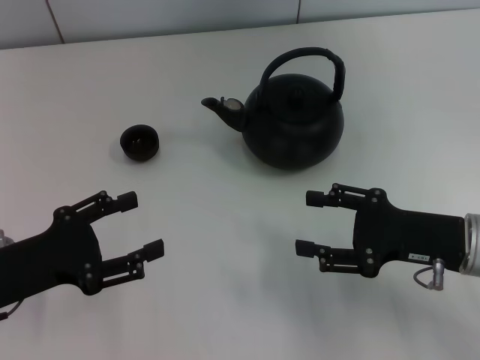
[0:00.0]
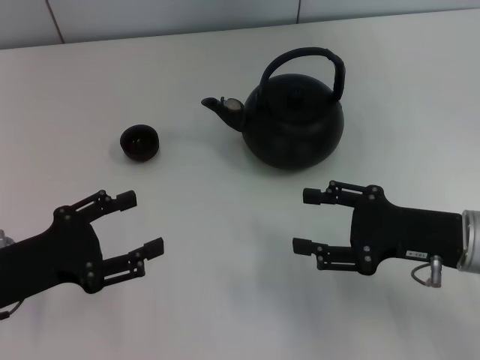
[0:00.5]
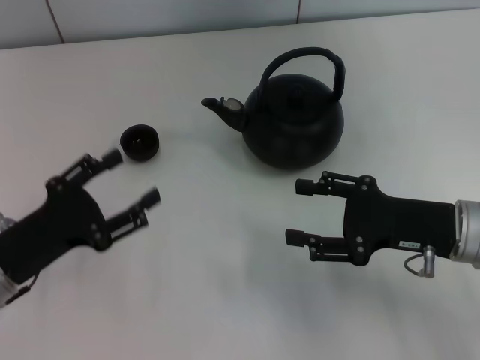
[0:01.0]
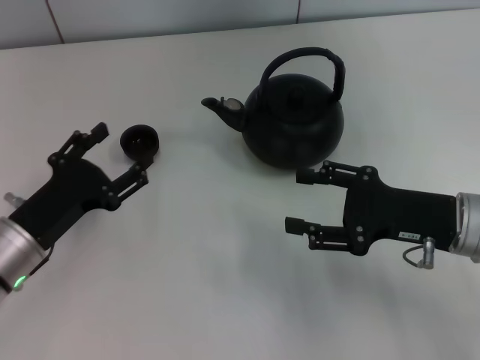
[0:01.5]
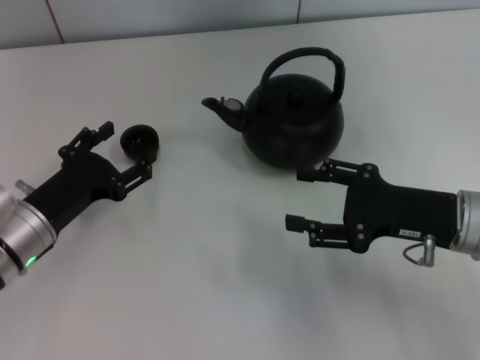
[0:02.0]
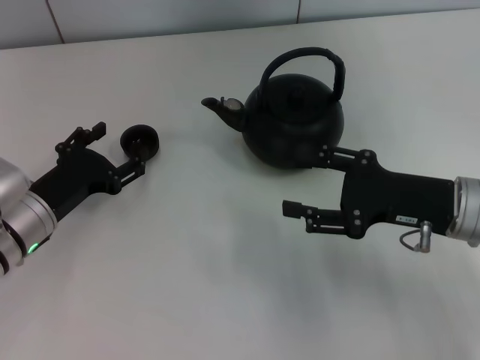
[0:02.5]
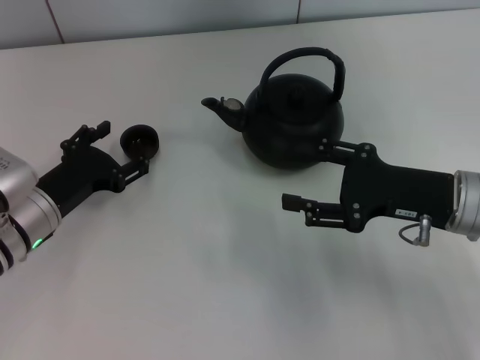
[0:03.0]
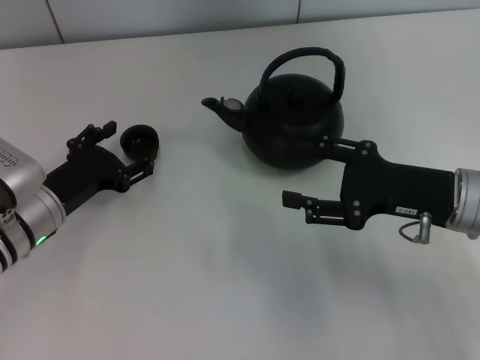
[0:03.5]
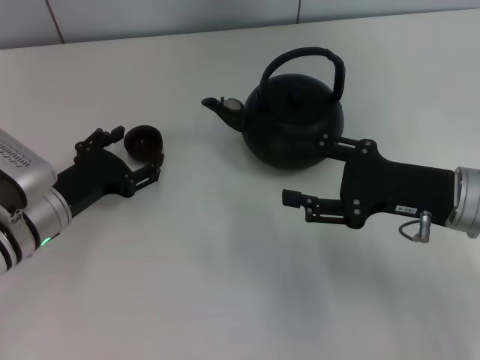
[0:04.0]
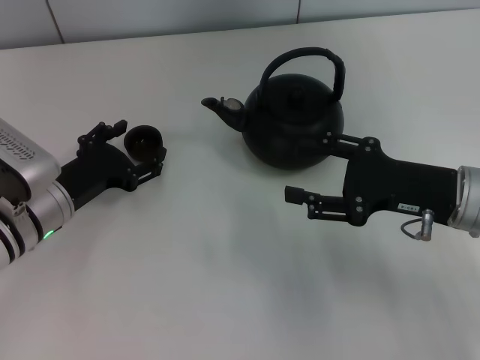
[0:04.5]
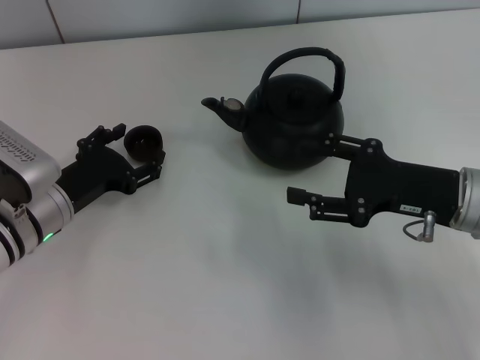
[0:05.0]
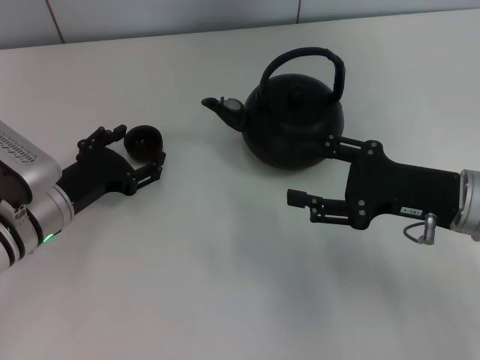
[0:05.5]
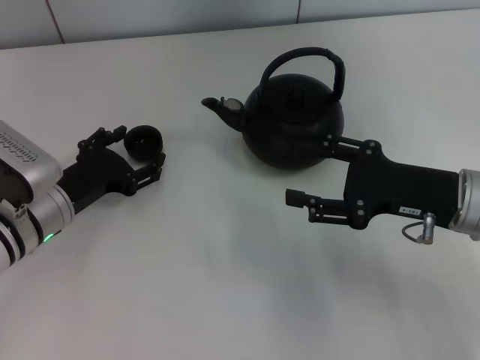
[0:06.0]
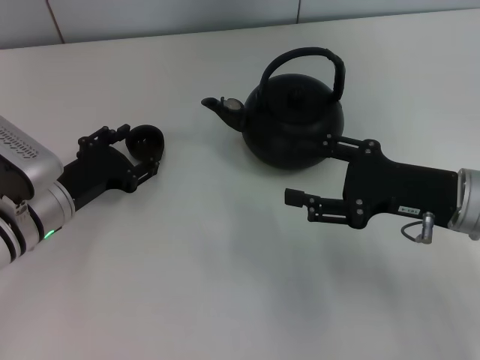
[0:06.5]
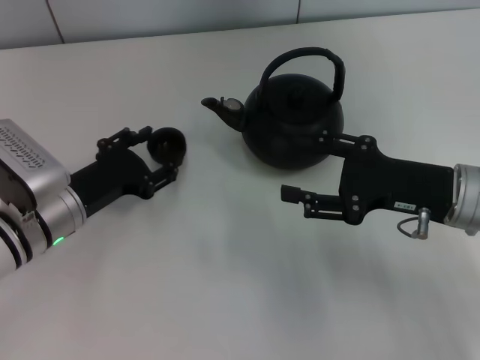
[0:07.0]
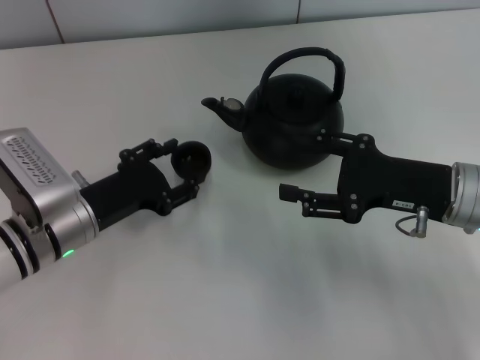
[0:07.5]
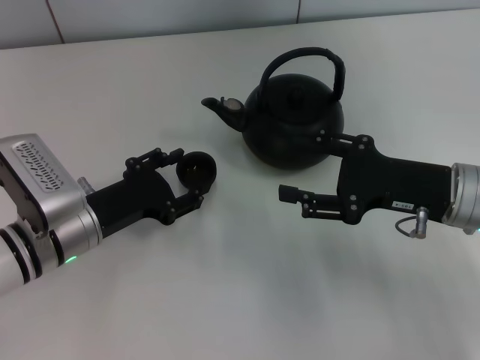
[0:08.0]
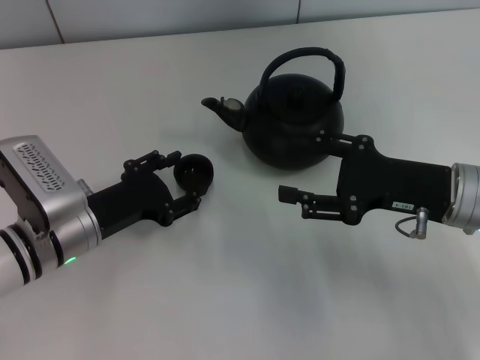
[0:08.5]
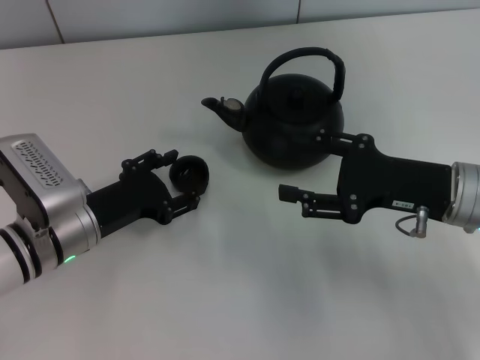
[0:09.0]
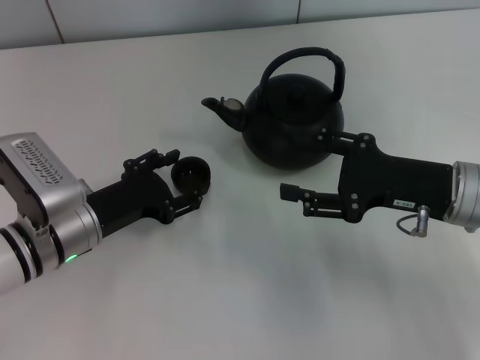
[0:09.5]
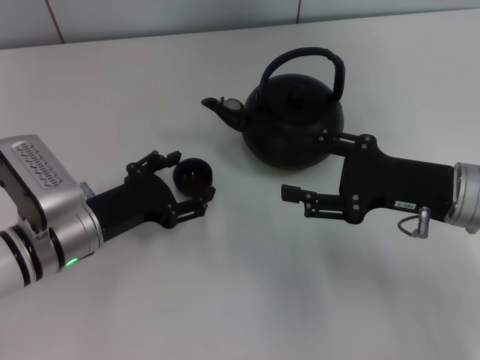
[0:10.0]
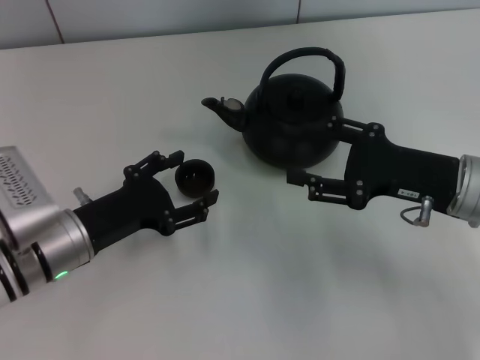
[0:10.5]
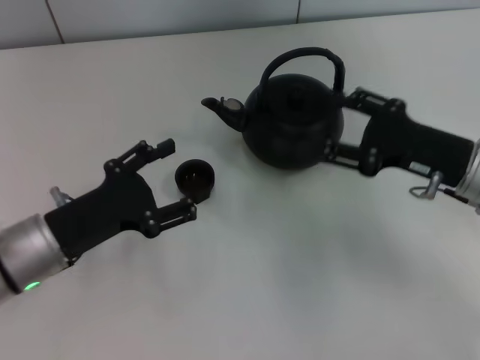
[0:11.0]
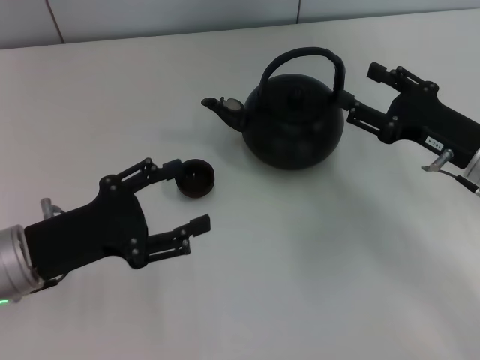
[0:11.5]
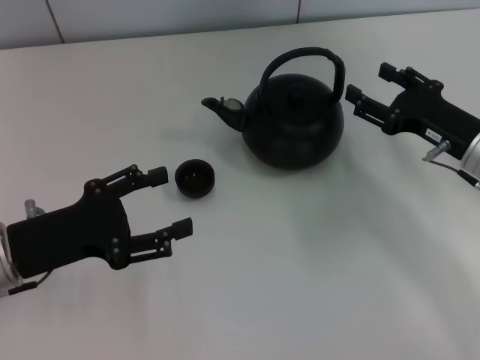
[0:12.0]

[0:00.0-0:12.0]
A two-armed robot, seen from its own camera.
Task of the whole recording: Grasp the handle of the teapot with one hand and pour tea into the teacup.
Step, 0:00.0 to 0:07.0: Pick up the teacup with the left gripper.
Step, 0:07.5 to 0:11.0: Place the teacup in the center of view with the left gripper.
0:00.0 to 0:02.0: The left gripper heads forward, covering about 5 cm.
0:02.0 to 0:04.0: The grippers stay close to where they were, moving slightly.
0:04.0 to 0:06.0: Both grippers stay put.
0:06.0 to 0:08.0: The left gripper closes up.
0:08.0 to 0:10.0: The left gripper opens its fingers.
0:10.0 to 0:12.0: The left gripper goes approximately 5 cm to the left and upward. Meanwhile the right gripper shifts by approximately 5 cm.

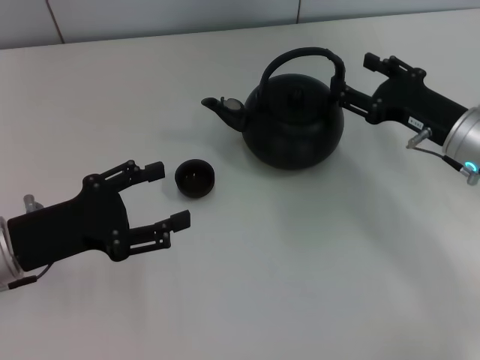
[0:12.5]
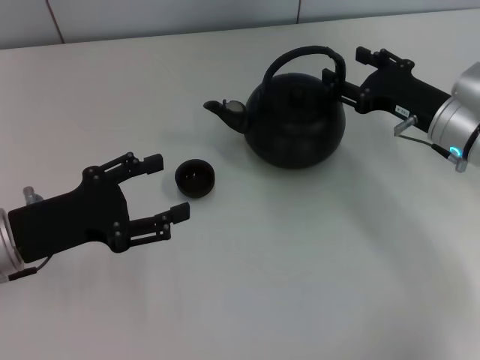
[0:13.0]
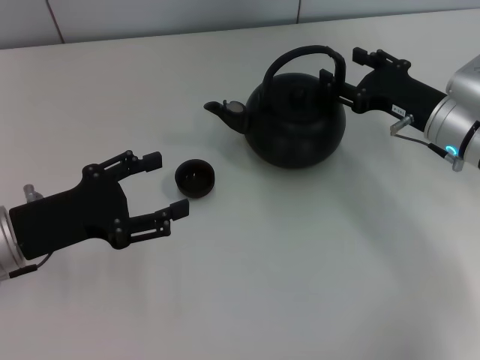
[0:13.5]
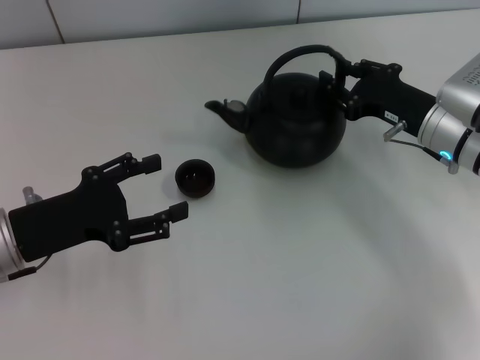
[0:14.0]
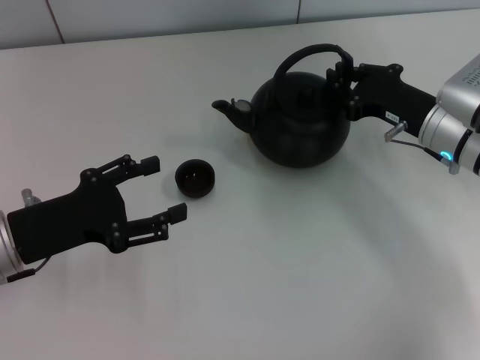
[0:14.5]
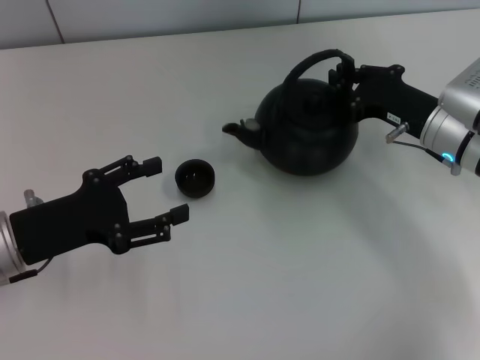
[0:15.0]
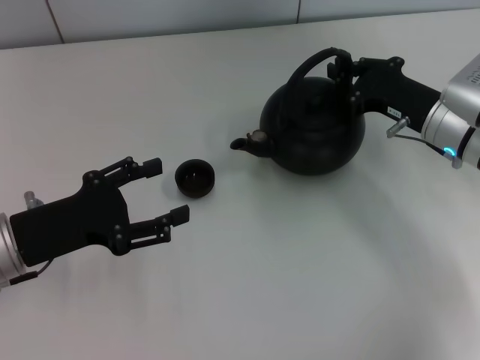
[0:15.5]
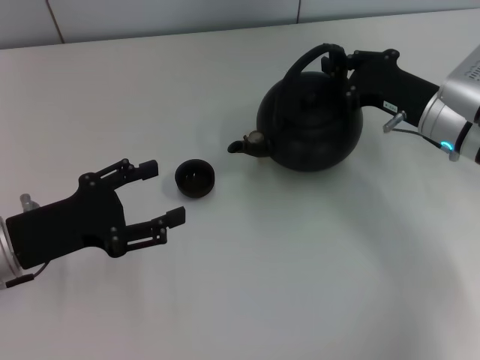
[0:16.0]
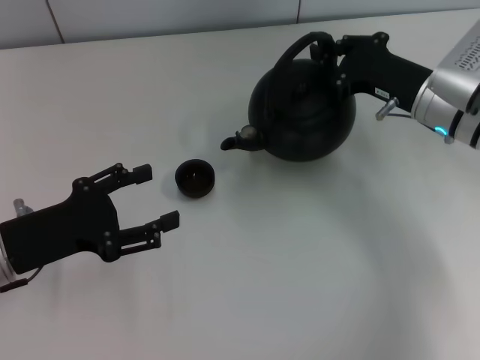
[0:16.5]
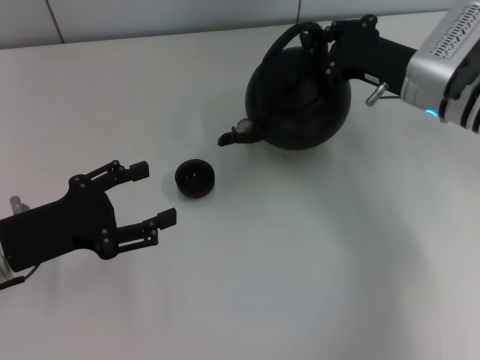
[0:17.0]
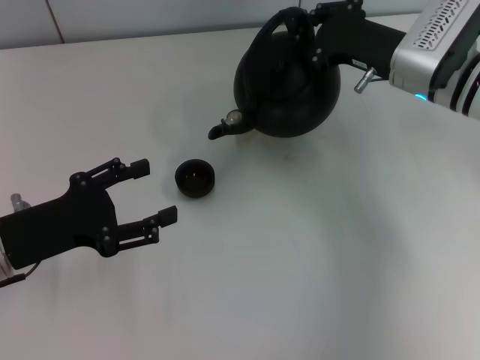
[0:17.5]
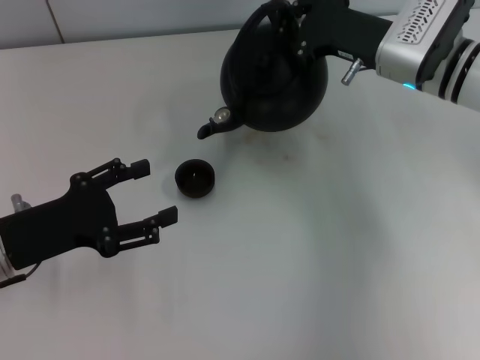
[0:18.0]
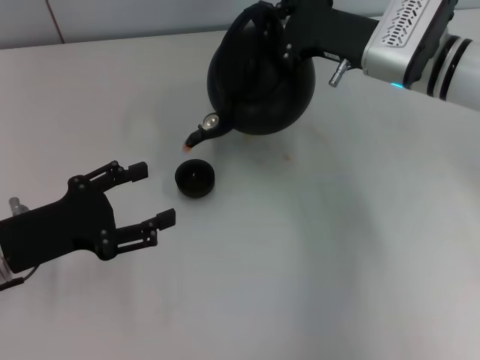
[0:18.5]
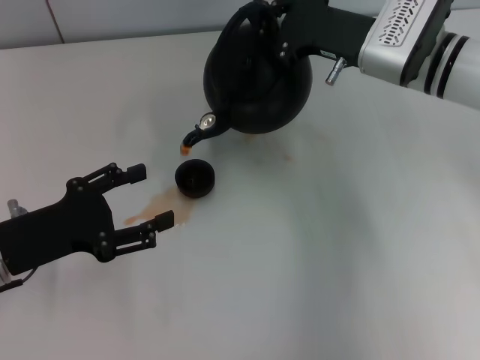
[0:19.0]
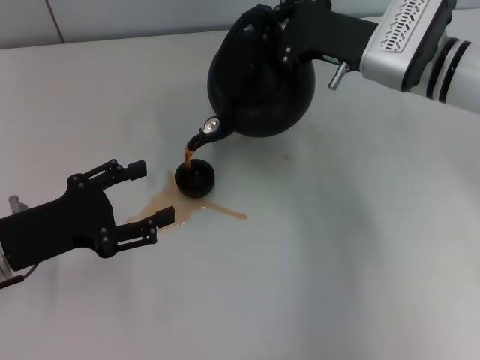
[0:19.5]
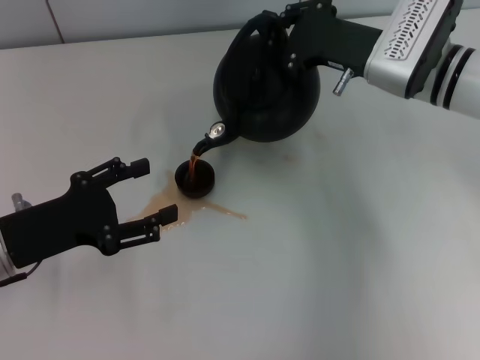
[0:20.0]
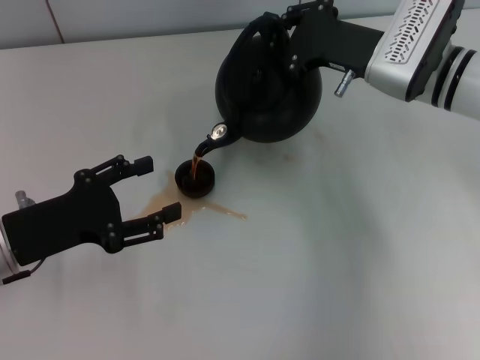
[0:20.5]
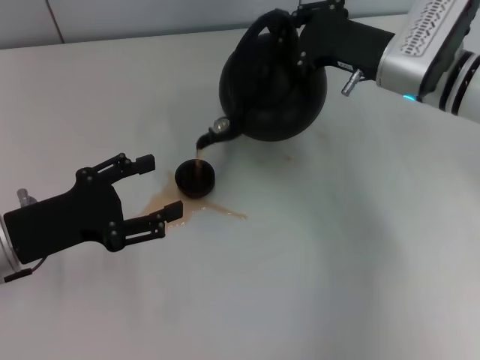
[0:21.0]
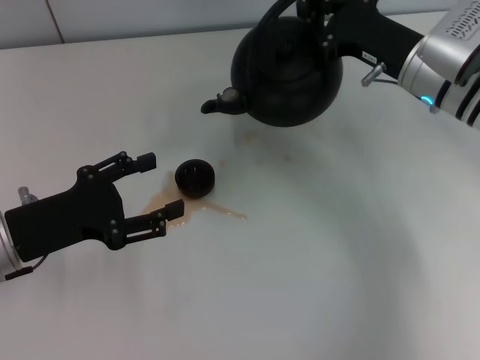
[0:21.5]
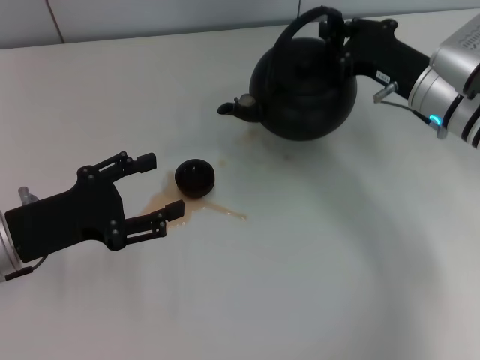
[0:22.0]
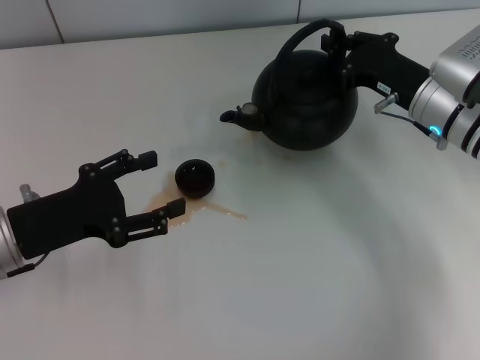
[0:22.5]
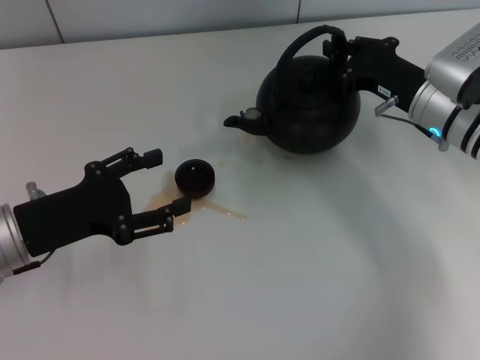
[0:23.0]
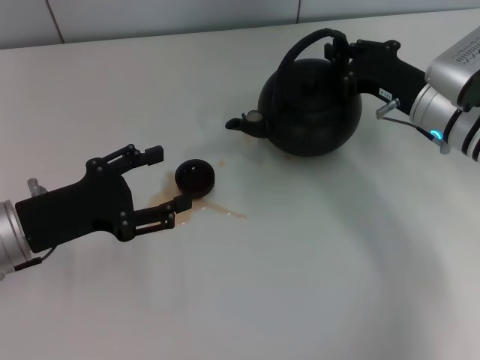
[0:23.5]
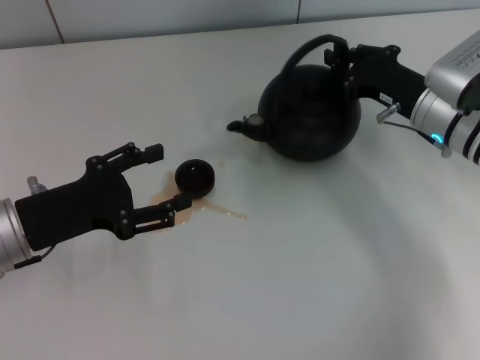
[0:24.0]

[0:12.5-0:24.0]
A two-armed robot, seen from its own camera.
Task of the whole recording: Grasp the handle of the teapot with one hand and pour tea into the teacup.
Step, 0:12.5 to 0:16.5: Pick up the teapot with the right gripper.
0:12.5 to 0:14.5: The right gripper closes up.
0:14.5 to 0:16.5: The grippers stay close to where they were, moving slightly.
0:16.5 to 0:18.5: The right gripper ends up some 5 cm from where it was.
0:18.5 to 0:20.0: Both grippers stay about where they are.
0:20.0 to 0:22.0: The right gripper shifts by roughly 5 cm.
0:22.0 to 0:24.0: The grippers stay close to where they were, moving slightly.

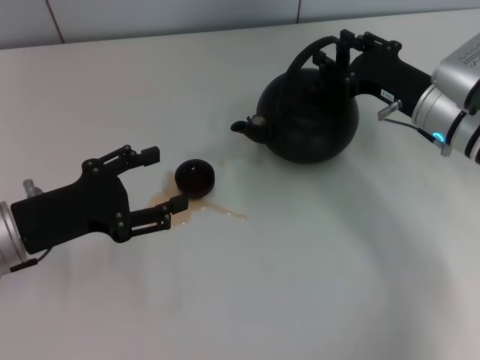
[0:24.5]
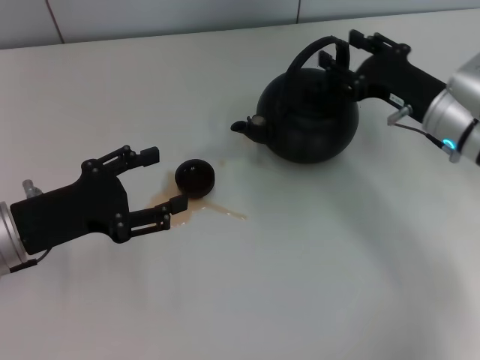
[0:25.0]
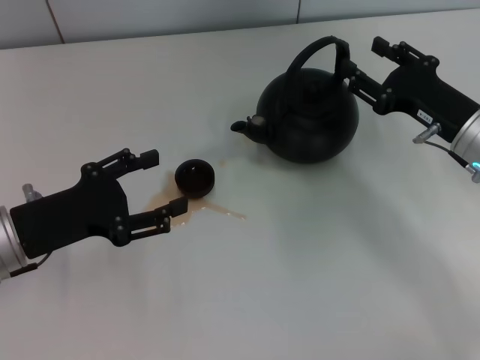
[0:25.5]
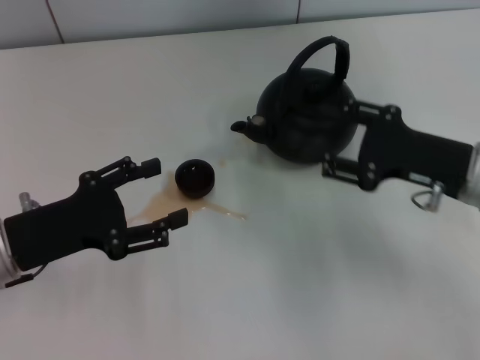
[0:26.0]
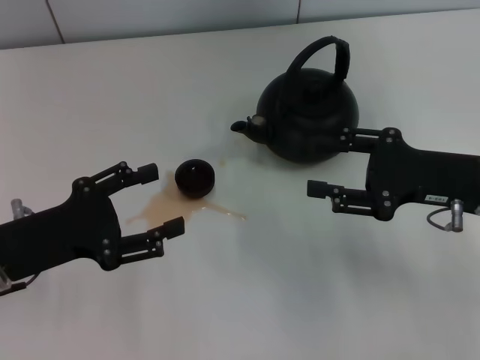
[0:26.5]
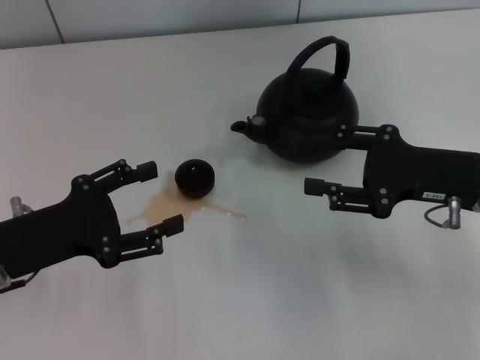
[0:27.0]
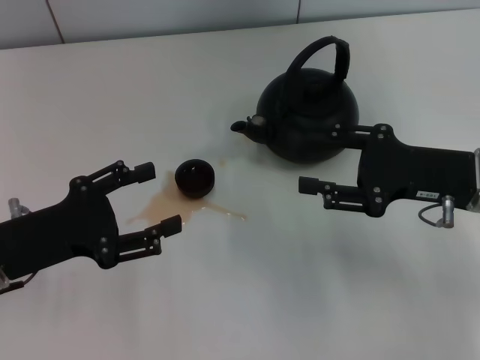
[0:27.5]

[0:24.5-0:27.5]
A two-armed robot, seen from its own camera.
Task of the whole recording: Grasp the handle of the teapot with one hand and pour tea into the teacup.
Step, 0:24.5 to 0:26.5: Put down the teapot with the right gripper.
0:24.5 to 0:26.0: The right gripper travels backward by approximately 10 cm, and opens.
0:26.0 to 0:27.5: There are only small adjustments of the grippers.
